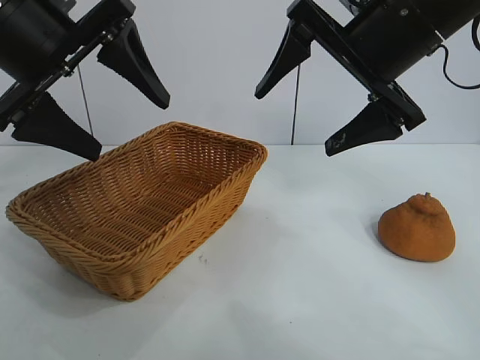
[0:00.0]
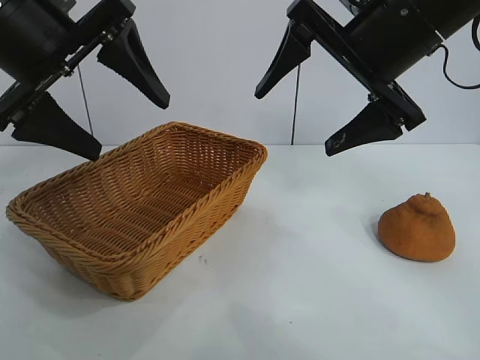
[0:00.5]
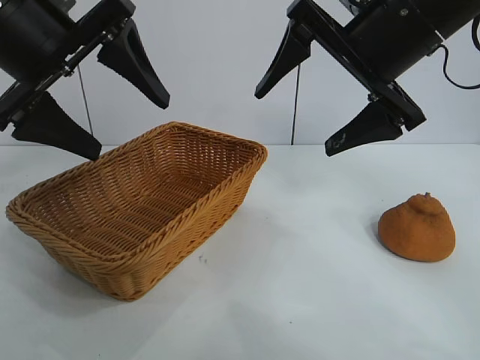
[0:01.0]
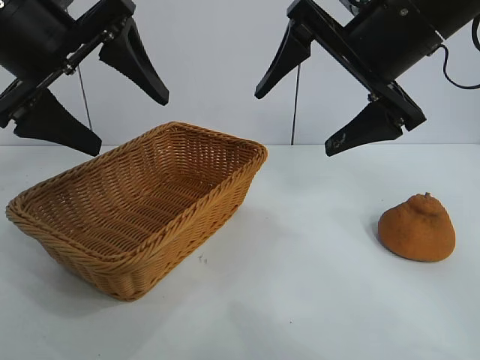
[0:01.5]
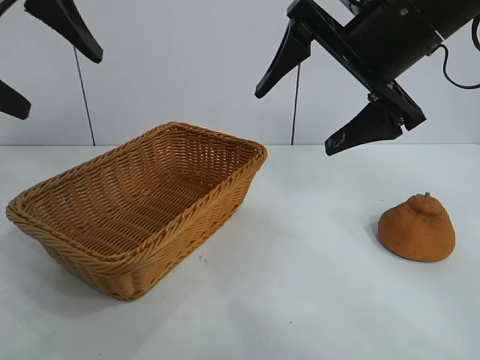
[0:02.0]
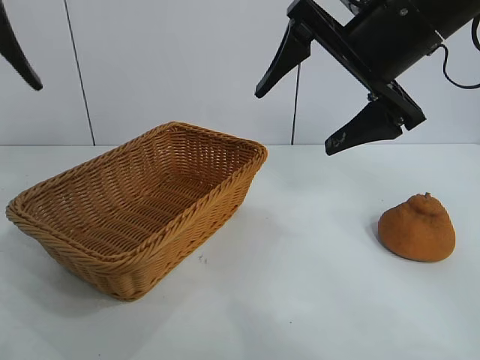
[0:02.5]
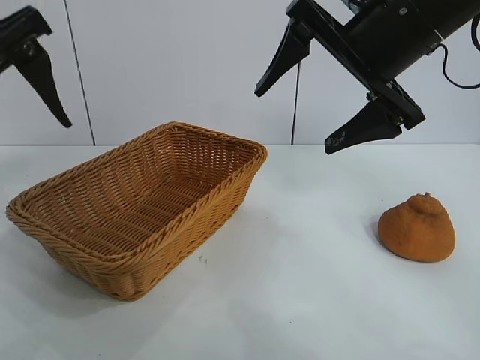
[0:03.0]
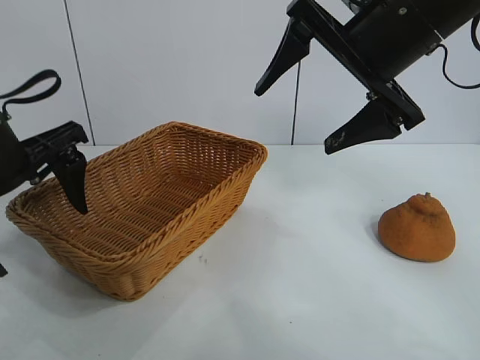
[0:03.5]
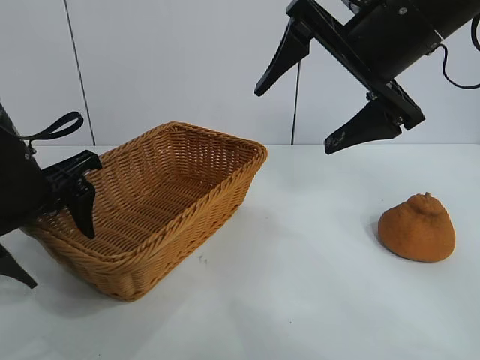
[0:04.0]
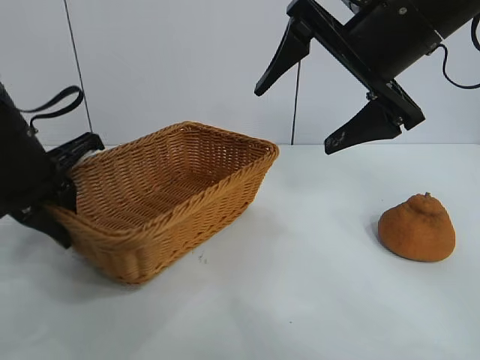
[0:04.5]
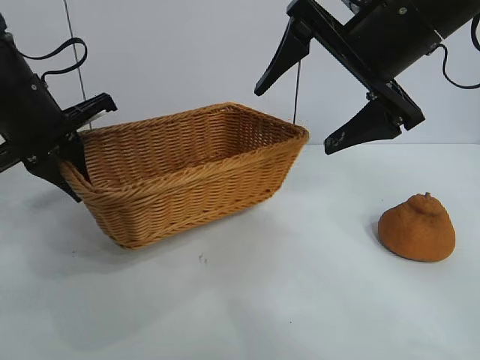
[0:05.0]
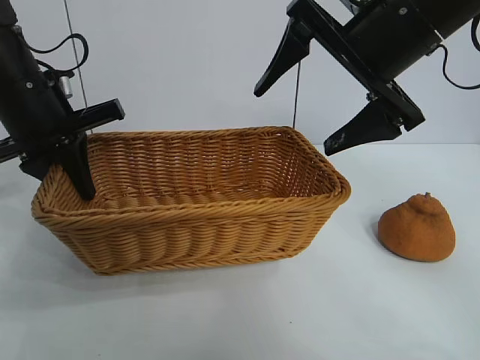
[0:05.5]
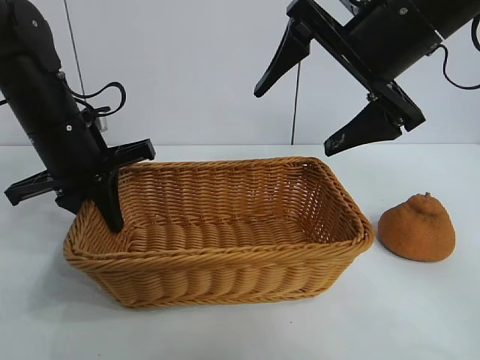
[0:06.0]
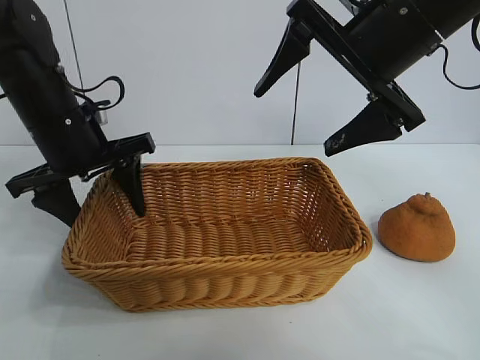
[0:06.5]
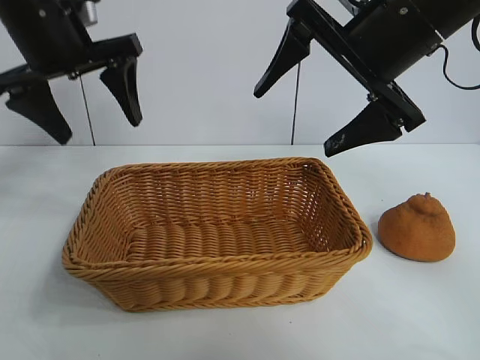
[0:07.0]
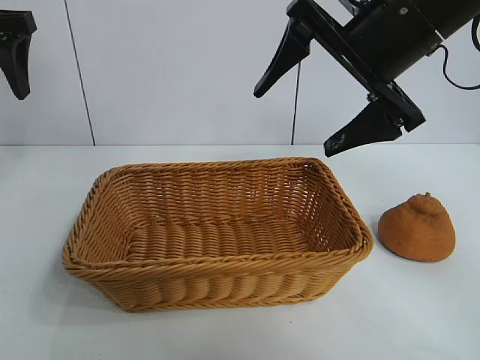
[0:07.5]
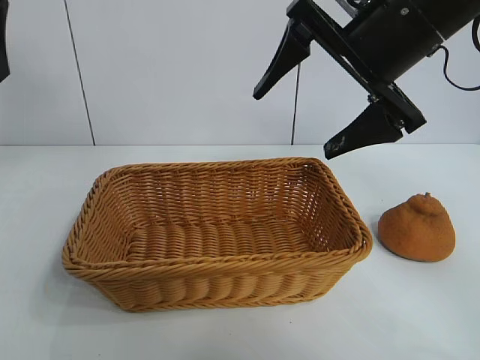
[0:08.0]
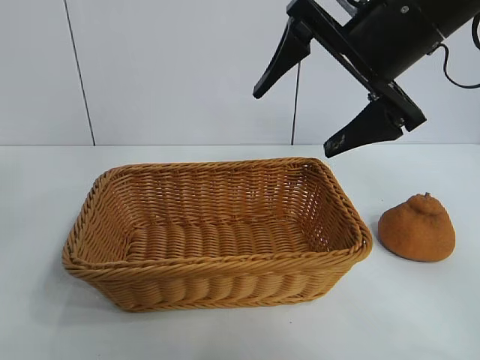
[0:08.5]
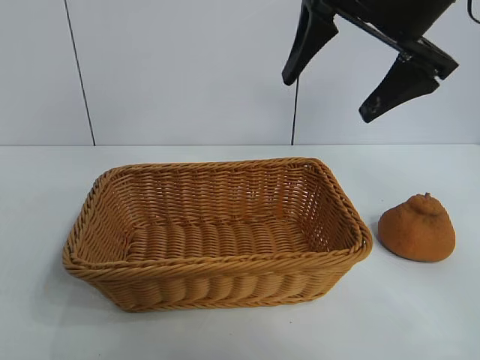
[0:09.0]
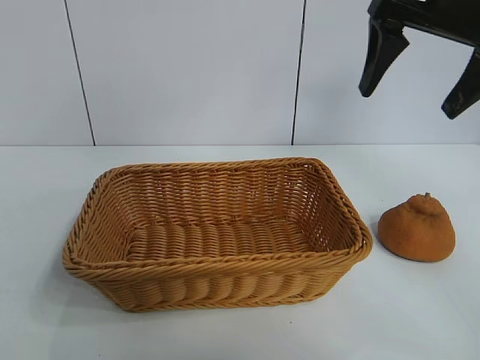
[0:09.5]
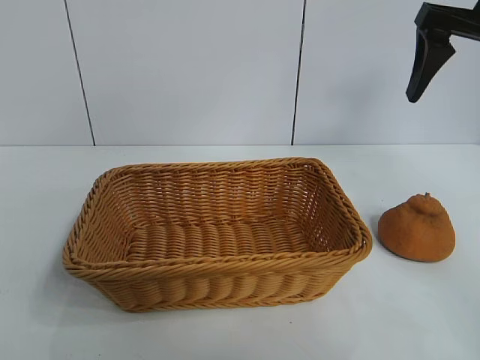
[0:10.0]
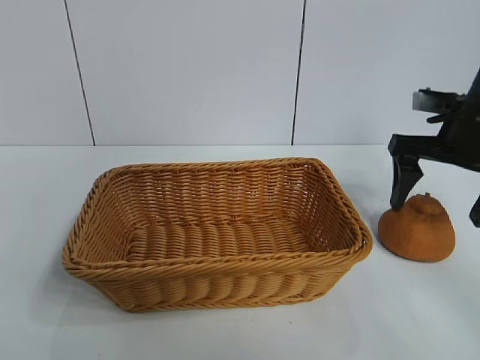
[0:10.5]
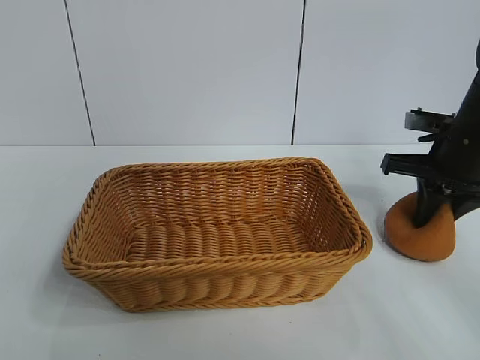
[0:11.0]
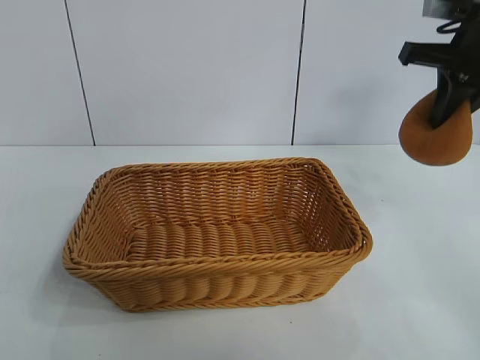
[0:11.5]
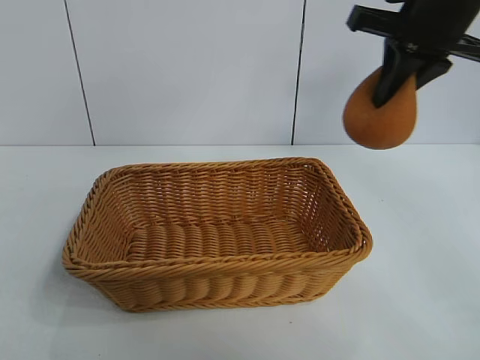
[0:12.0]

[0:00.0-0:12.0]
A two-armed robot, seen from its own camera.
Task of the whole recording: pick up the orange and put it into the basket.
Step, 0:01.5 to 0:04.0: Grasp the basket with left gripper.
Step, 0:04.5 to 0:06.5: Place the basket in the center of view with left gripper.
Step, 0:07.0 to 0:11.0: Grasp the orange with right gripper.

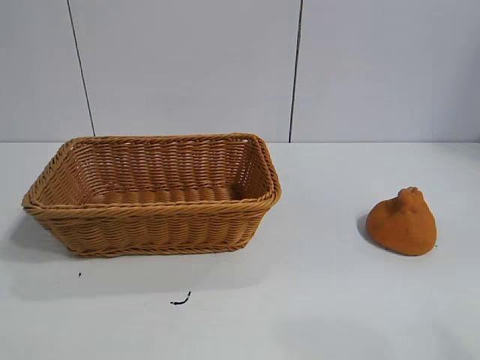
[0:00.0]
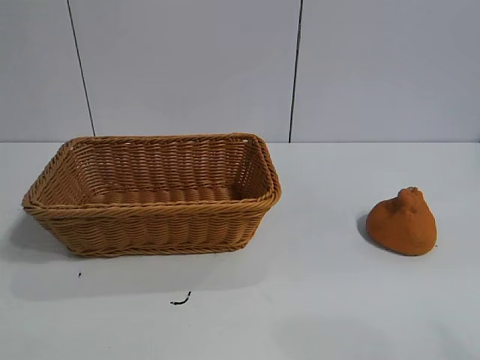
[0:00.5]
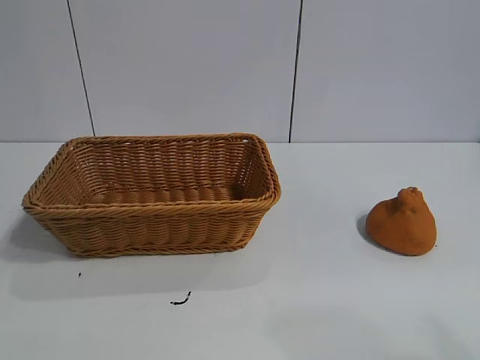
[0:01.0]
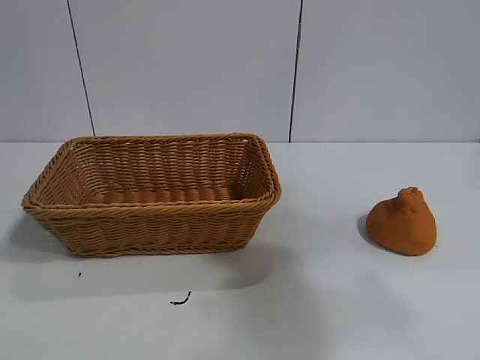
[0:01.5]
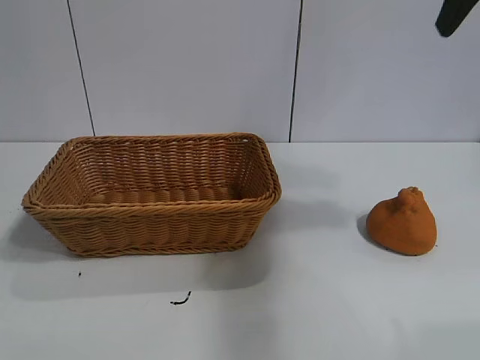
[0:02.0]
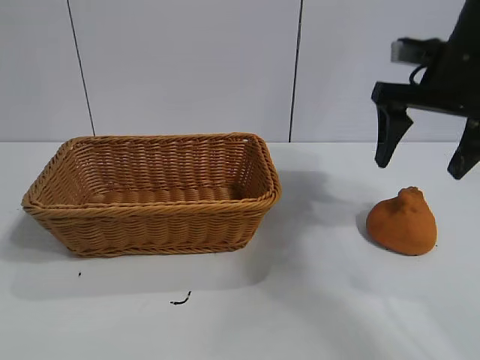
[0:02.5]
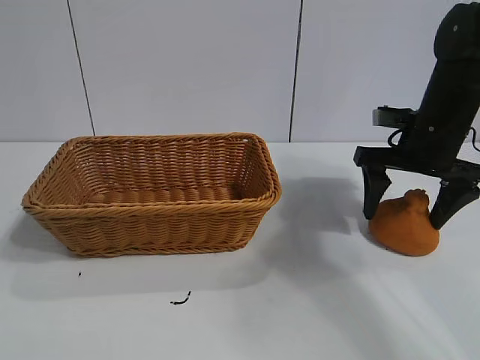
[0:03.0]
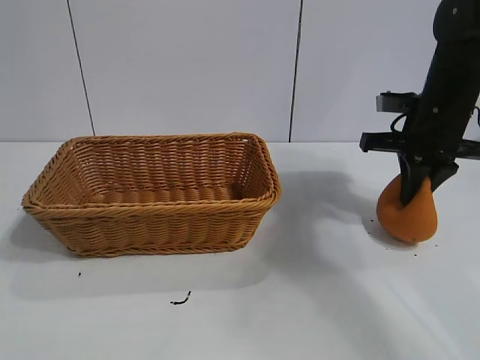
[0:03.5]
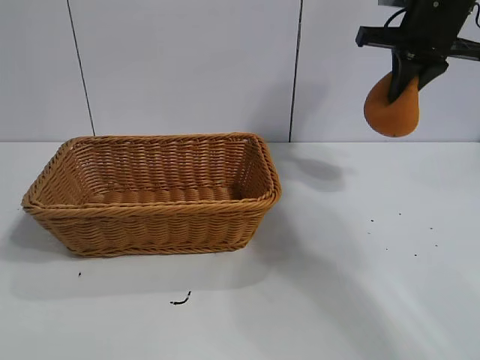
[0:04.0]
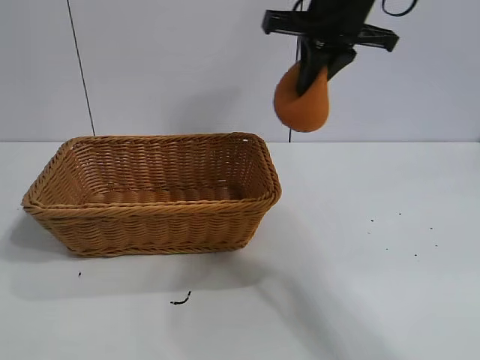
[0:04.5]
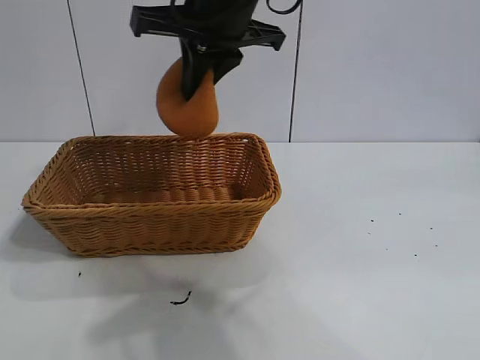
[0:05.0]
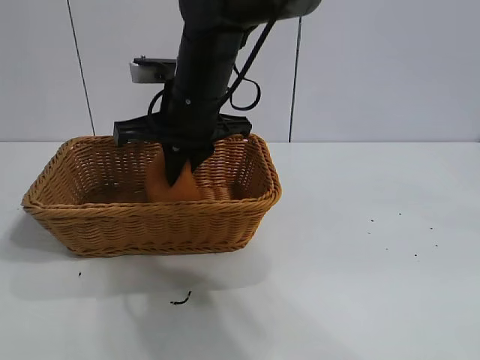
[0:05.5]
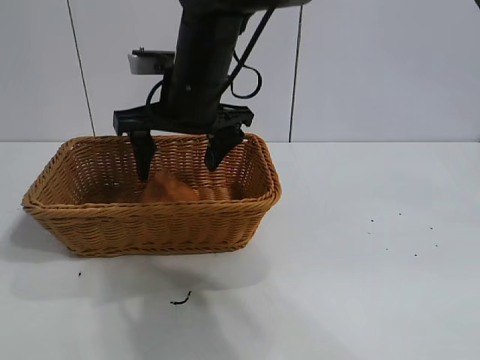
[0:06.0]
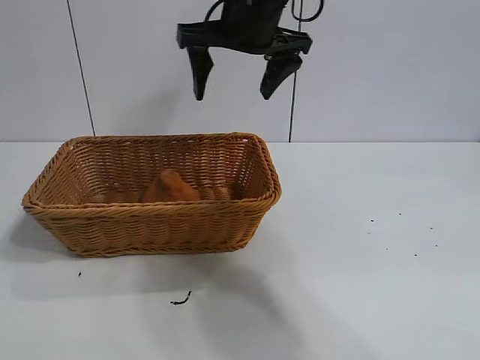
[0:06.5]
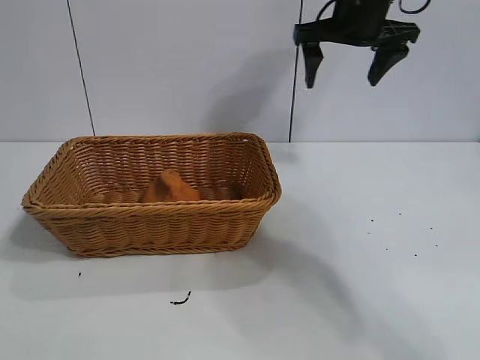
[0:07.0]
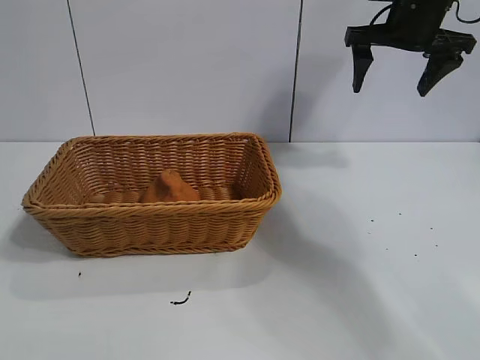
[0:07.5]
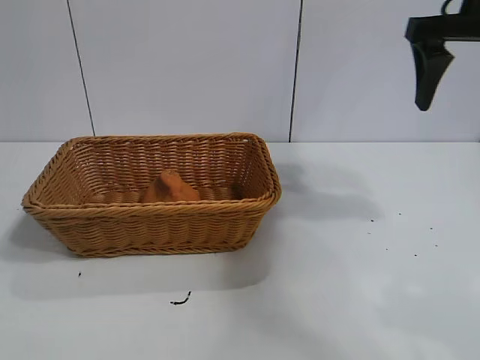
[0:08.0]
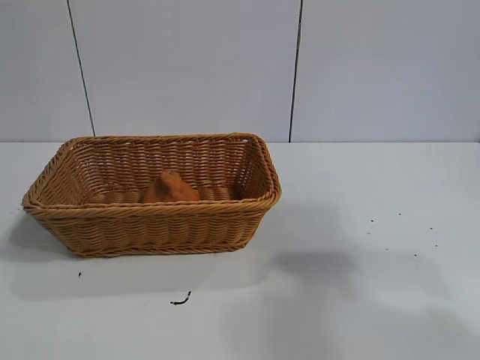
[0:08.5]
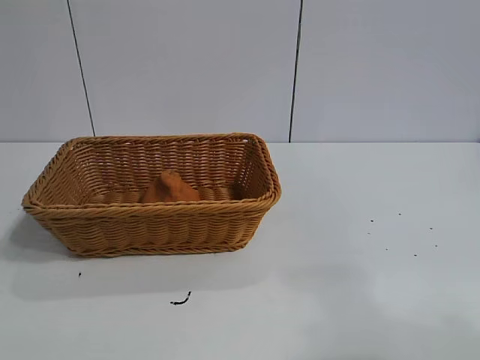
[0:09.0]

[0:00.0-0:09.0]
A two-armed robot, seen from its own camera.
Task of the whole recording: pick up the orange and put it into the basket.
Step, 0:01.0 to 0:03.0: Grasp the orange with right gripper.
Step, 0:03.5 to 0:06.0: Place the orange in the basket with right gripper.
